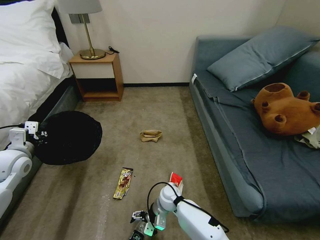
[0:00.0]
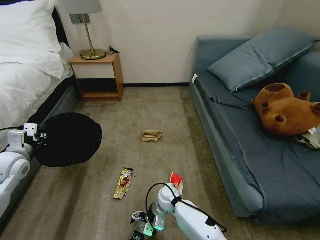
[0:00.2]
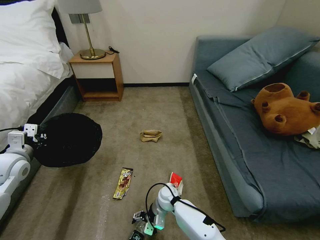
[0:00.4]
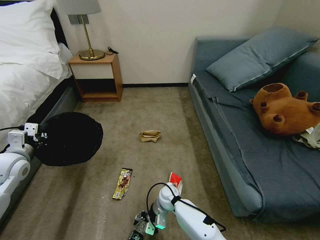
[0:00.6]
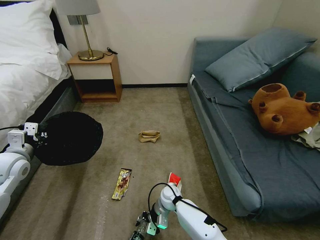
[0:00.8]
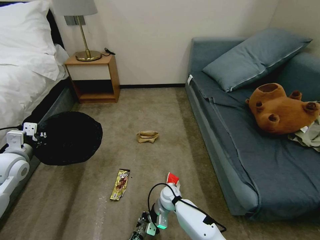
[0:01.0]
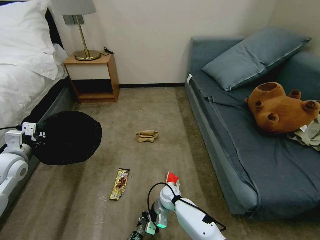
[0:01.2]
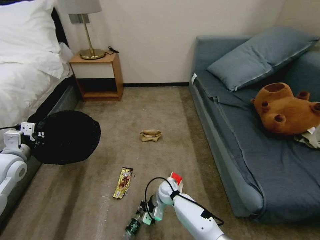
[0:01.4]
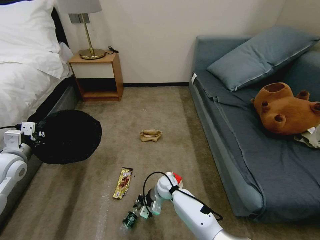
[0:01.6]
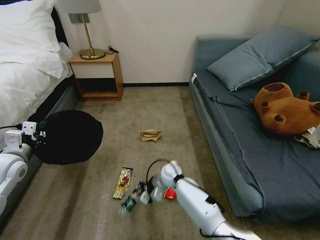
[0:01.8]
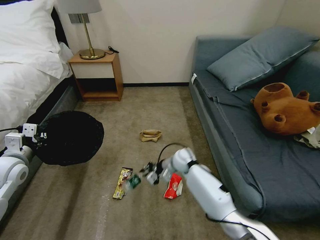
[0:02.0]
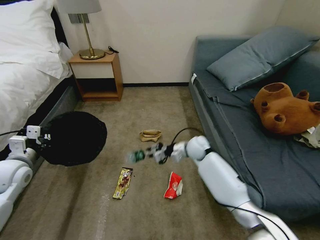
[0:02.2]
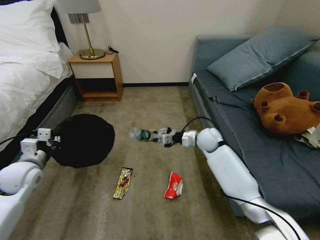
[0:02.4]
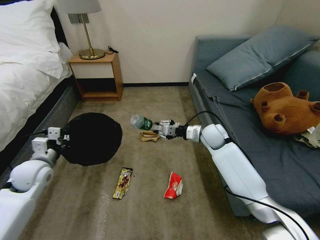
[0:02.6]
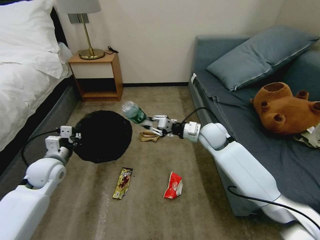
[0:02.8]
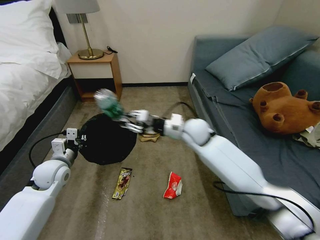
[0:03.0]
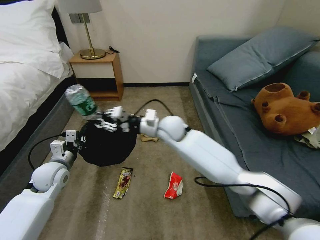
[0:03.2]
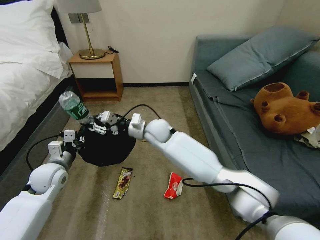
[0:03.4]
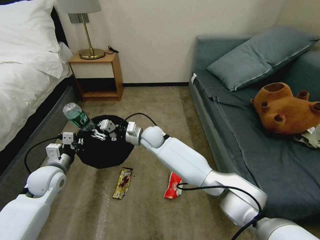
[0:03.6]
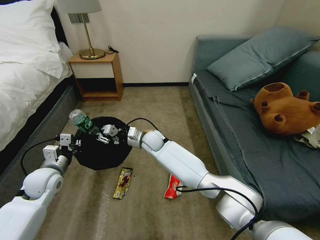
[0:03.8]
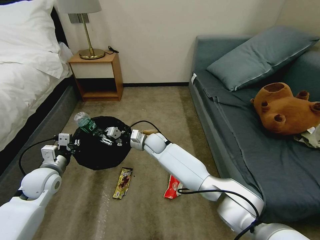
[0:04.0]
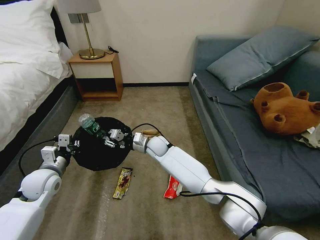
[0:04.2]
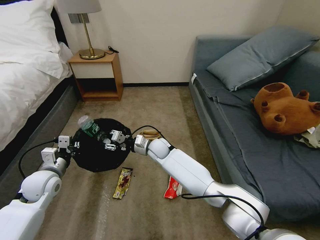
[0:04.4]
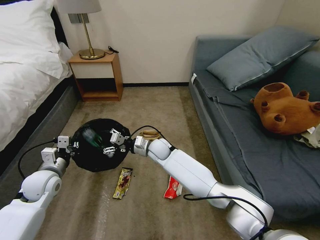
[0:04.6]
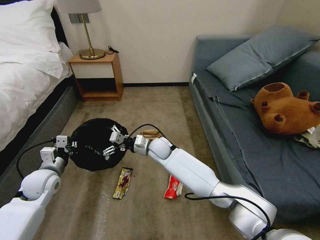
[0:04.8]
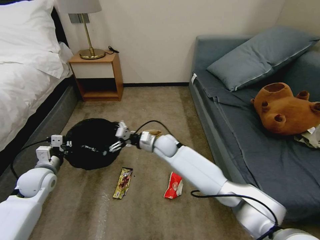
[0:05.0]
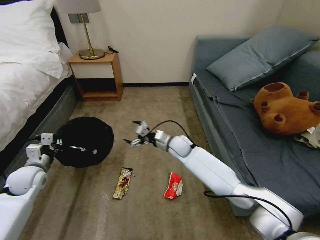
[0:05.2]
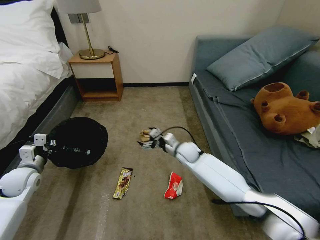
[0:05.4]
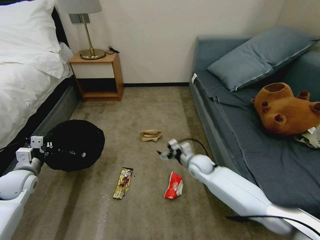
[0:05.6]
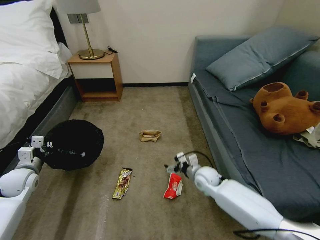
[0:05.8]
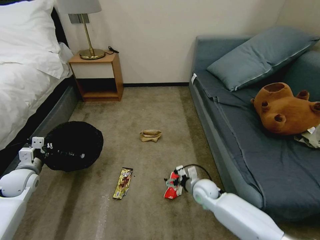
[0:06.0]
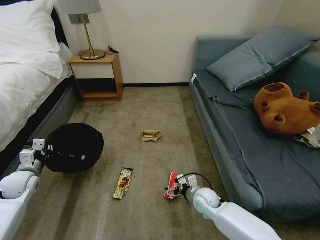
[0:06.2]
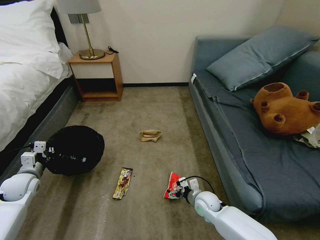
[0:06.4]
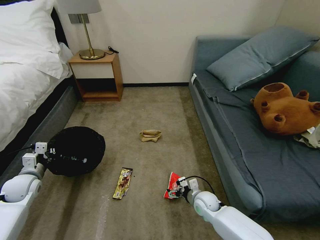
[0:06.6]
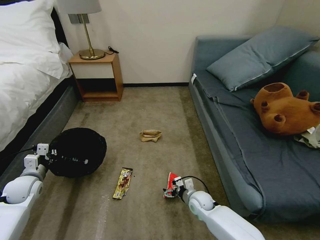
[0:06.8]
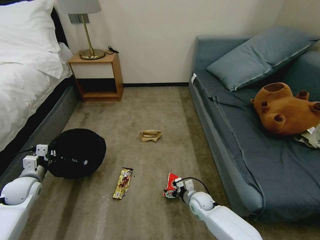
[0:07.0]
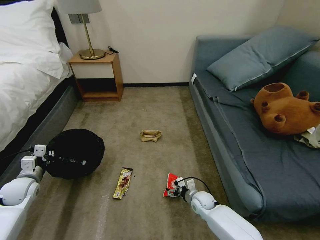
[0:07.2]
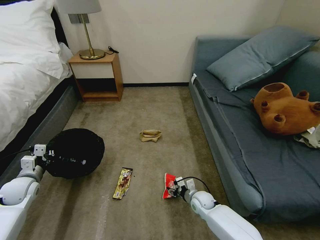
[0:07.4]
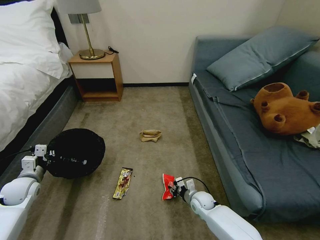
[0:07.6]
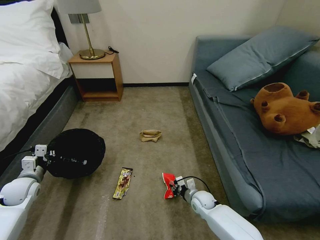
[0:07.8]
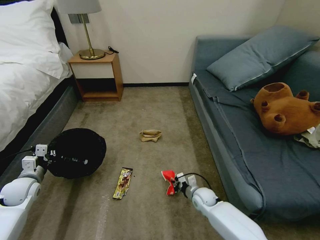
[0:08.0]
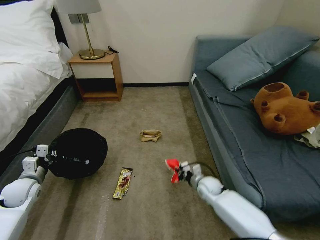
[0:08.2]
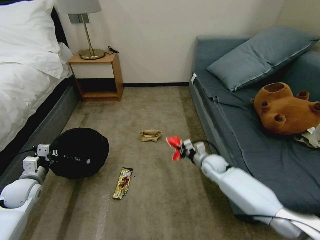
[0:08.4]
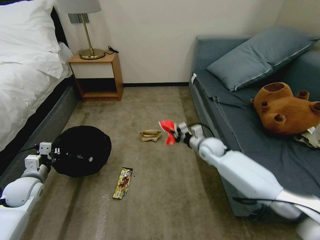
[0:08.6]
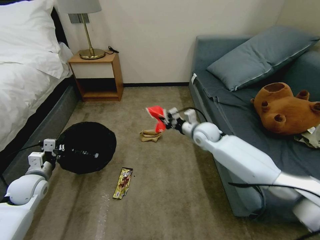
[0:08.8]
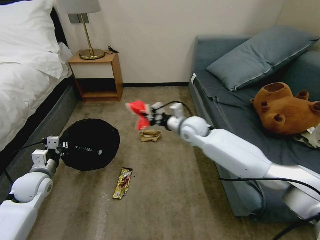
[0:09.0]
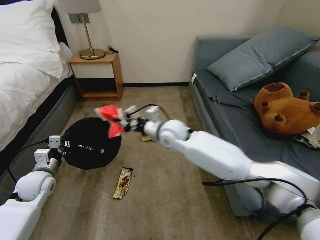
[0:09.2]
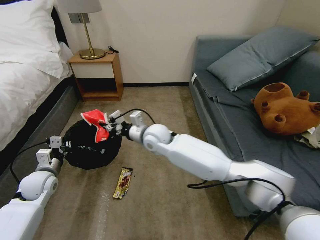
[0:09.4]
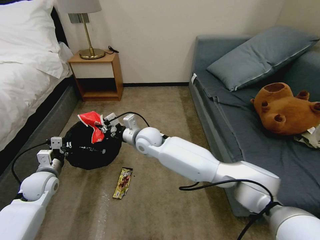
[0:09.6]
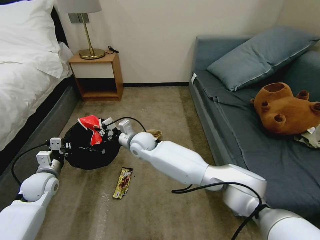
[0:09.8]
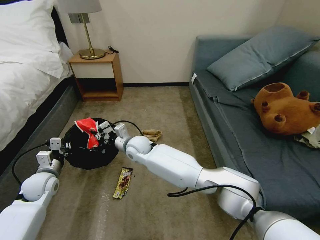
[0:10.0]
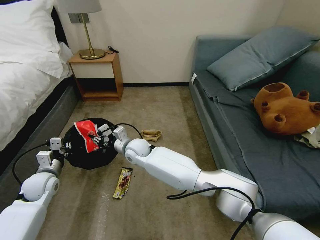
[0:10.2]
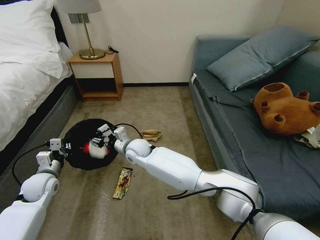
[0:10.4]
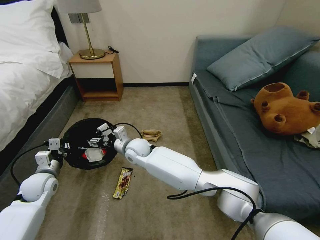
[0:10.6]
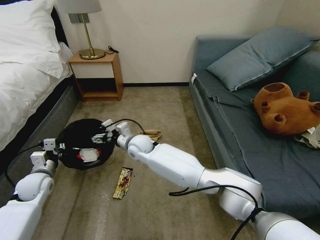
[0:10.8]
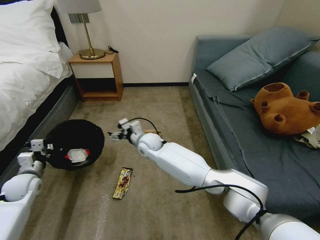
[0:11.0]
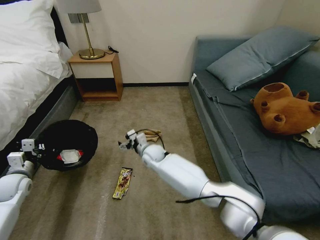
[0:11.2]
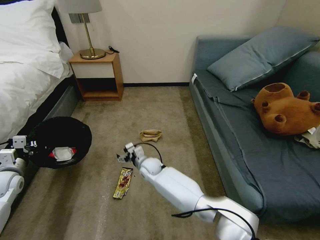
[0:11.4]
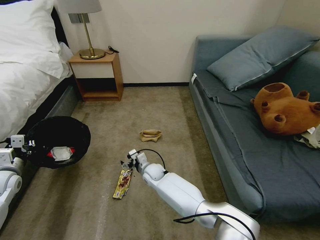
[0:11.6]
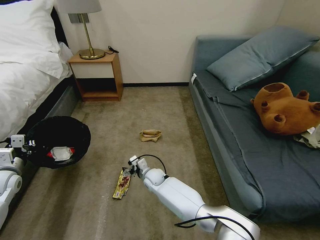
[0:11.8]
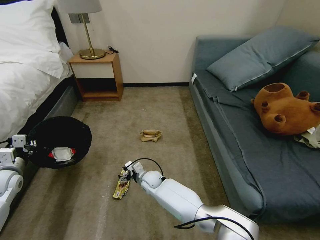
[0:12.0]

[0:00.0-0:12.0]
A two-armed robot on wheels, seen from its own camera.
Task of the whole recording: Pick up the trash bin, then pick up the garbage on the floor and place it into the trash bin.
0:00.0 to 0:01.6: The right gripper closes its fingers.
0:01.6 to 0:03.0: The left gripper heads to the right and downward, covering some 10 cm; the right gripper is displaced upward by approximately 25 cm.
0:03.0 to 0:04.4: The right gripper travels downward and to the left by some 20 cm.
0:04.4 to 0:06.0: The left gripper is displaced to the left by roughly 10 cm. Meanwhile the right gripper goes approximately 25 cm to the right, backward and downward, and opens its fingers.
0:06.0 to 0:07.6: The right gripper is displaced downward by some 10 cm, and closes up.
0:07.6 to 0:09.0: The left gripper travels to the right by some 5 cm; the right gripper shifts approximately 35 cm upward and forward, and closes.
0:09.0 to 0:10.4: The right gripper heads to the left and downward, covering roughly 25 cm, and opens.
0:10.4 to 0:12.0: The left gripper travels to the left by some 10 cm. Meanwhile the right gripper goes approximately 15 cm downward, and opens up.

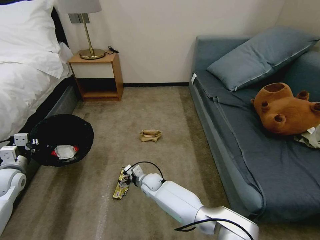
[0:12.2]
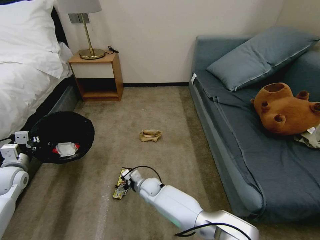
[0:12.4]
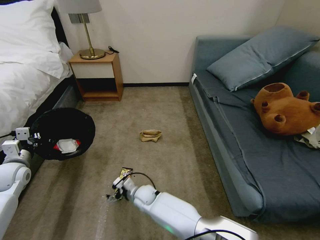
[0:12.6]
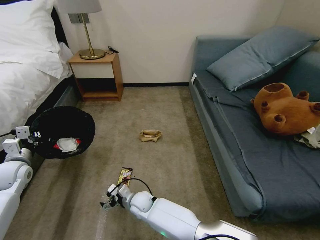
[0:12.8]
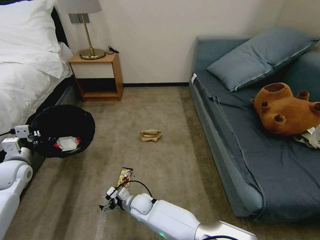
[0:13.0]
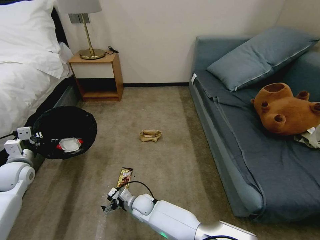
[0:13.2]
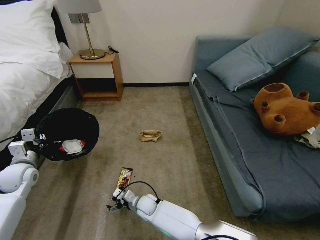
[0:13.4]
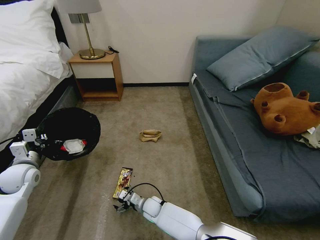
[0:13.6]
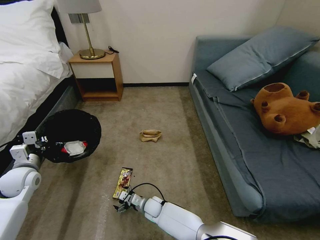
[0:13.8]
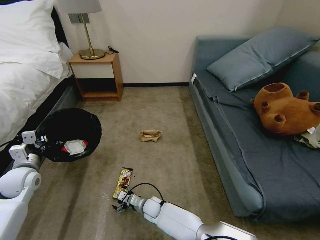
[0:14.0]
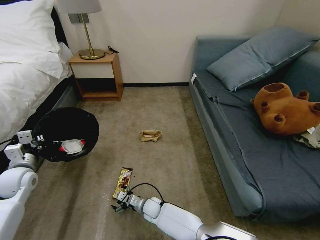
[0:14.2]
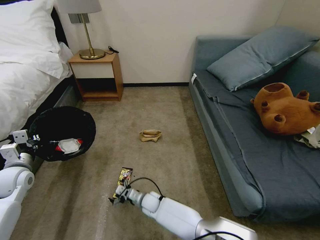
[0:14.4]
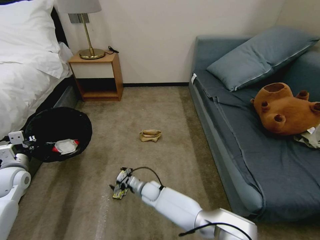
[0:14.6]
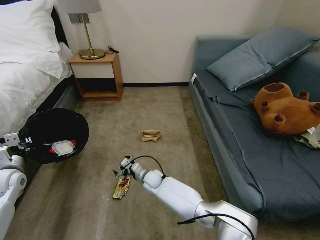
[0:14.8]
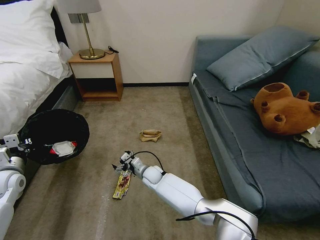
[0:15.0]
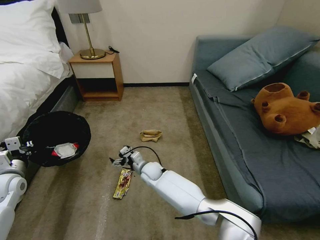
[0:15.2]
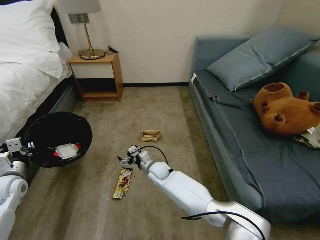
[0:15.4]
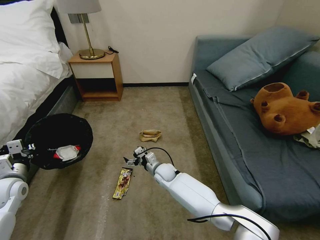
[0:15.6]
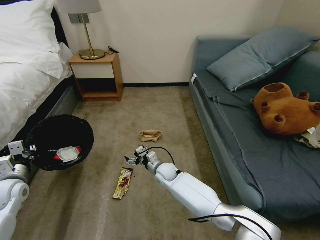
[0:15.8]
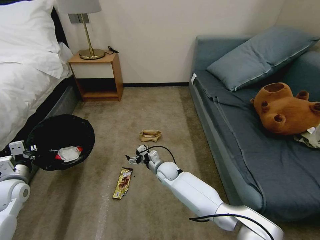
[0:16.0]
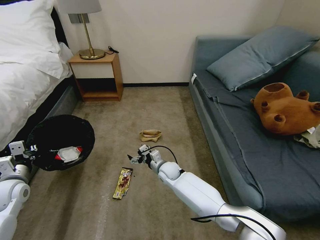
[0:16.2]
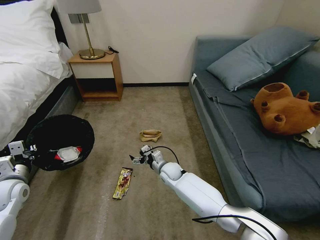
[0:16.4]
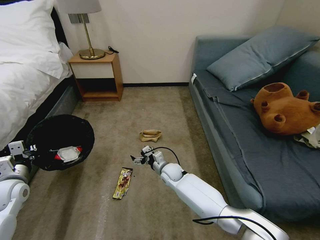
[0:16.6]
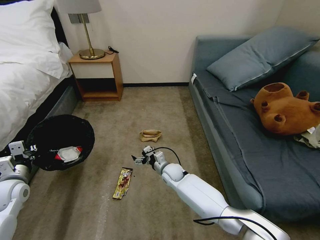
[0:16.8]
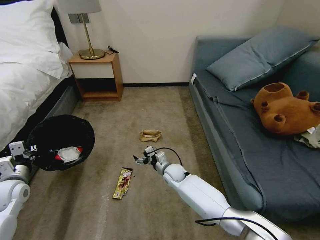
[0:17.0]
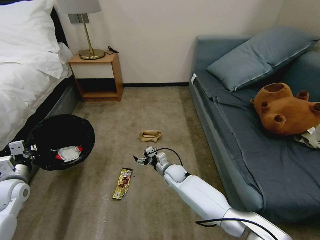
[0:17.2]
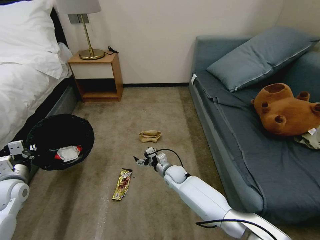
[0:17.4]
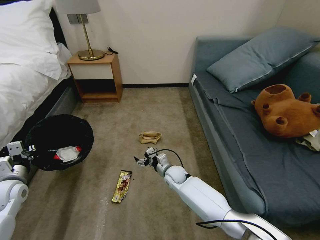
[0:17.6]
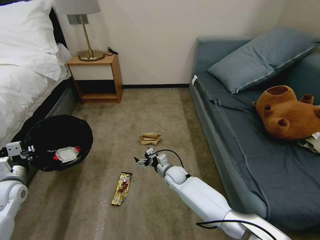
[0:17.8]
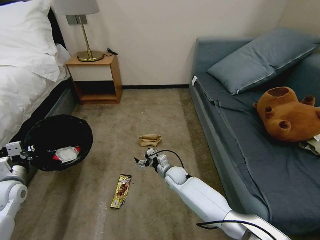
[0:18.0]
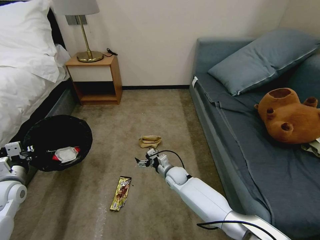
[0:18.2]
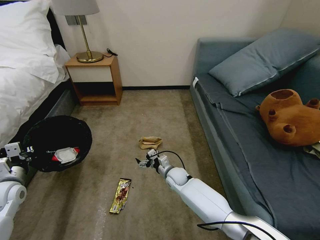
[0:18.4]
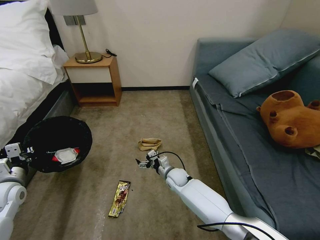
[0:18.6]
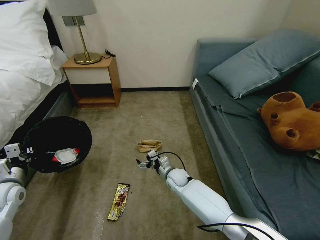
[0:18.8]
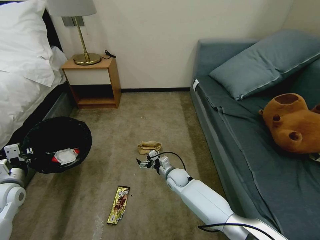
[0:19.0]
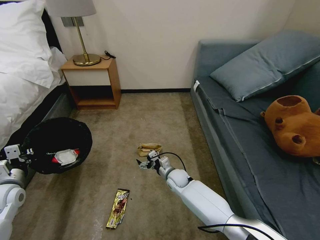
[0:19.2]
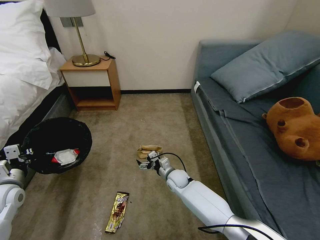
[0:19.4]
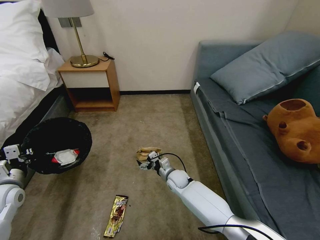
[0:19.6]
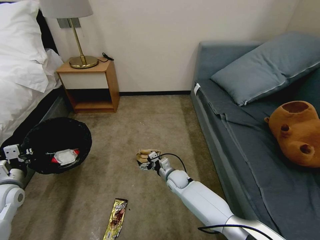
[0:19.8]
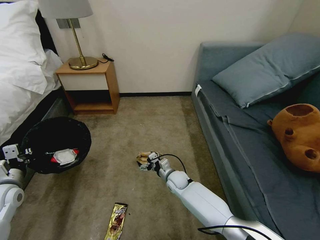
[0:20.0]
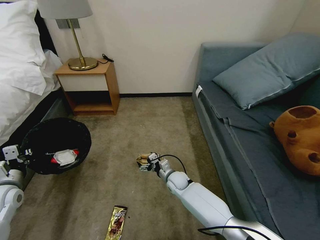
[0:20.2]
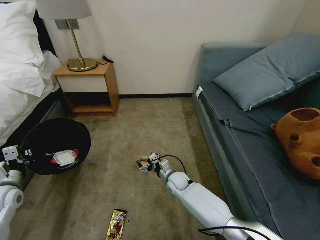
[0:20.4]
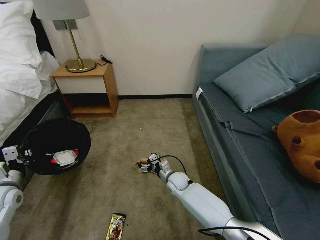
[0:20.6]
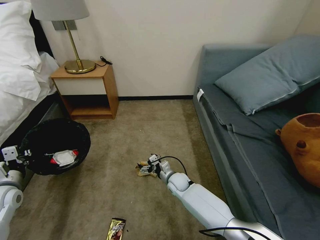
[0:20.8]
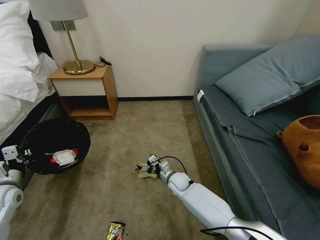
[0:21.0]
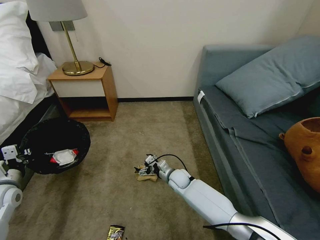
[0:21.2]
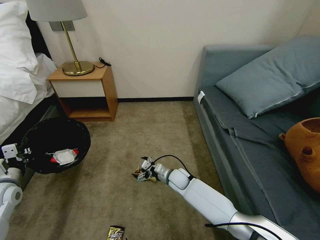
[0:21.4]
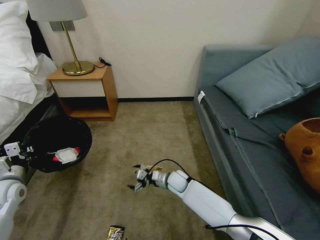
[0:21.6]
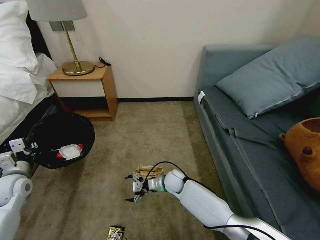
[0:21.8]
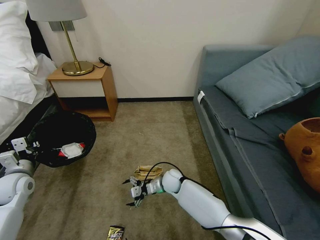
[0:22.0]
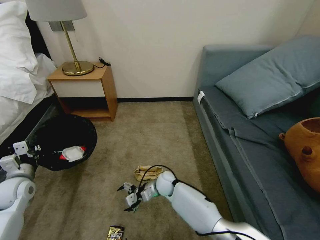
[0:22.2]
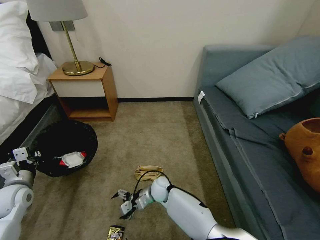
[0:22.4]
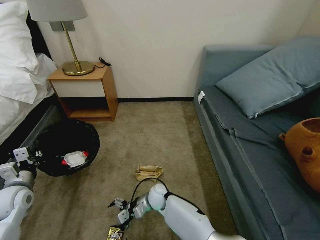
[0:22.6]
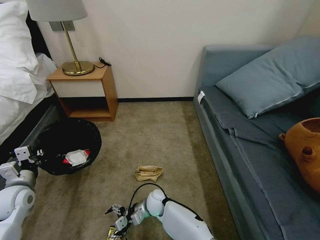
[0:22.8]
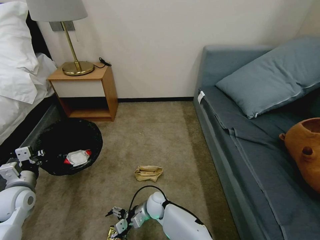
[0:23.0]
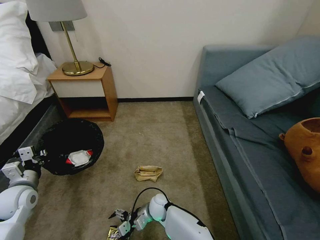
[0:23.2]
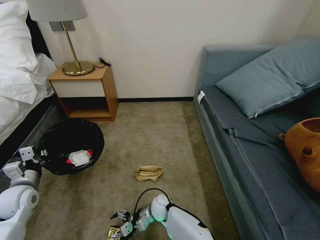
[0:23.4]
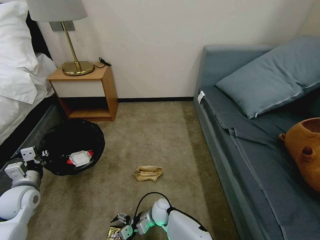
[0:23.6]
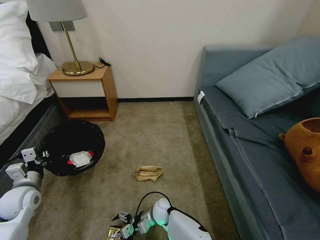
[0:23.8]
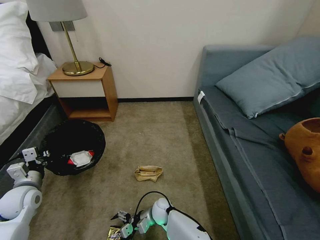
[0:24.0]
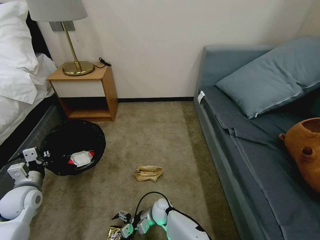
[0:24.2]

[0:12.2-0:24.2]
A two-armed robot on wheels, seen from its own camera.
Task of the whole recording: Pick up the trash bin, then pick up the garbage on the floor and place it into the trash bin.
0:12.2 to 0:13.8: The right gripper shifts roughly 10 cm downward and backward; the left gripper goes approximately 5 cm to the right.
0:13.8 to 0:15.2: The right gripper is displaced upward and forward by about 15 cm.
0:15.2 to 0:16.6: The right gripper goes some 10 cm to the right.
0:16.6 to 0:18.2: There are only small adjustments of the grippers.
0:21.2 to 0:22.6: The right gripper is displaced to the left and backward by some 10 cm.
0:22.6 to 0:24.2: The right gripper heads downward, covering roughly 5 cm.
